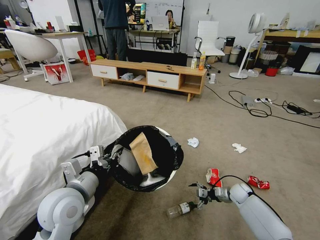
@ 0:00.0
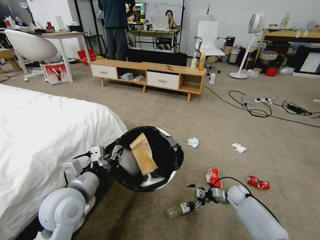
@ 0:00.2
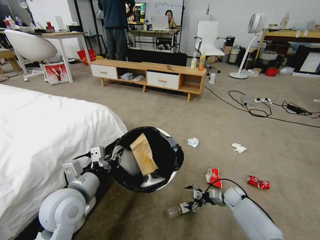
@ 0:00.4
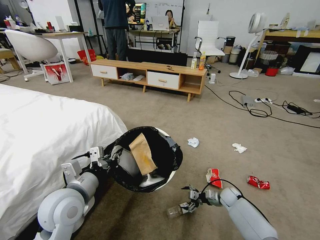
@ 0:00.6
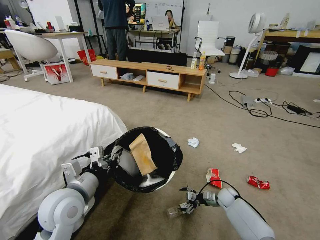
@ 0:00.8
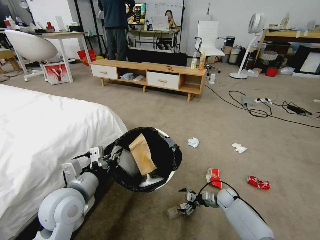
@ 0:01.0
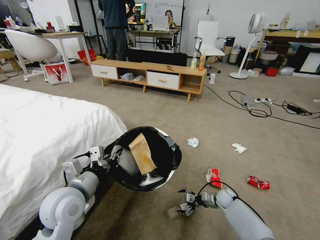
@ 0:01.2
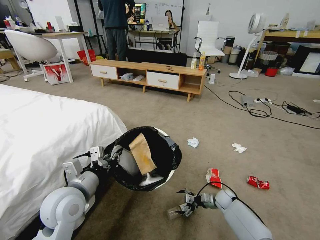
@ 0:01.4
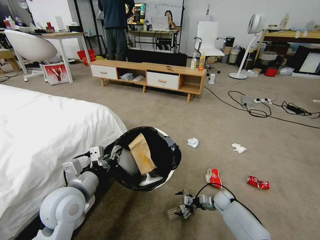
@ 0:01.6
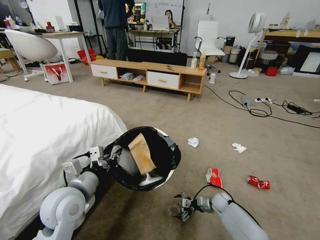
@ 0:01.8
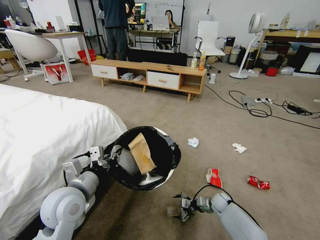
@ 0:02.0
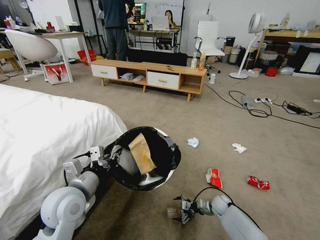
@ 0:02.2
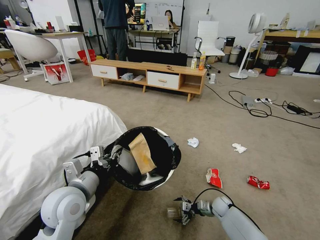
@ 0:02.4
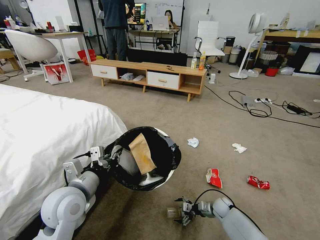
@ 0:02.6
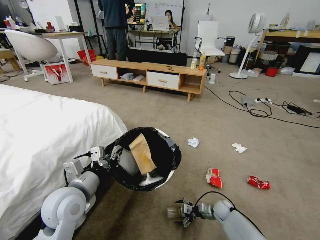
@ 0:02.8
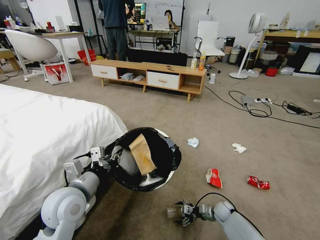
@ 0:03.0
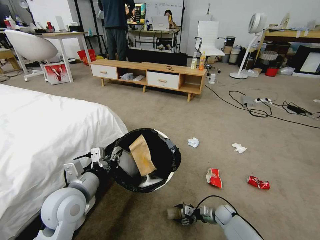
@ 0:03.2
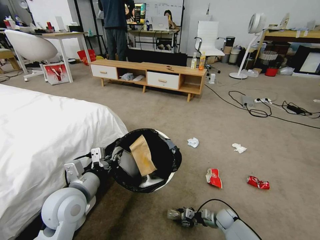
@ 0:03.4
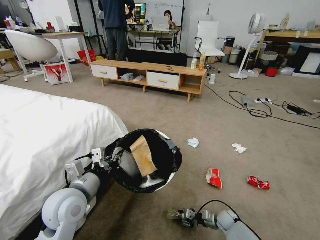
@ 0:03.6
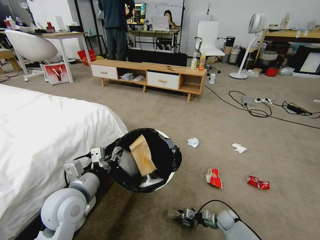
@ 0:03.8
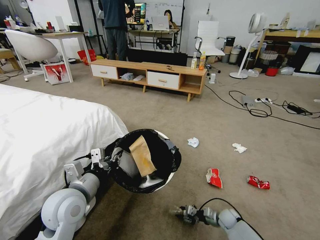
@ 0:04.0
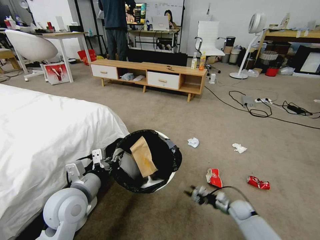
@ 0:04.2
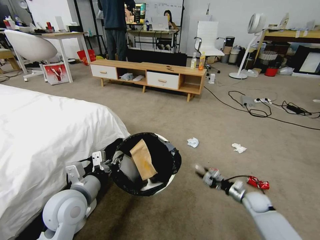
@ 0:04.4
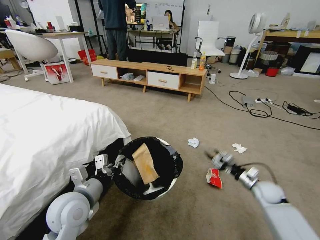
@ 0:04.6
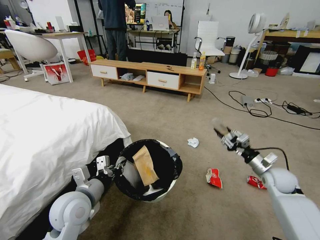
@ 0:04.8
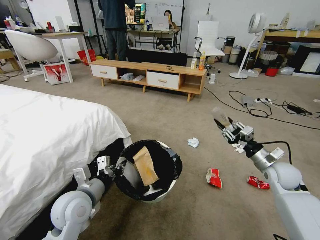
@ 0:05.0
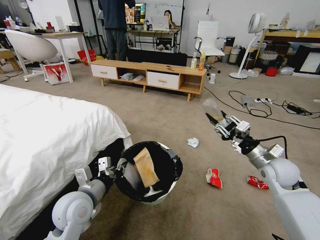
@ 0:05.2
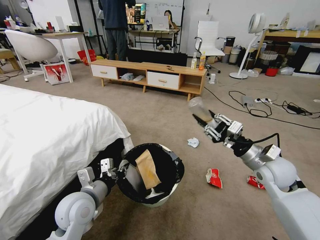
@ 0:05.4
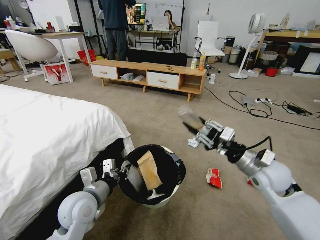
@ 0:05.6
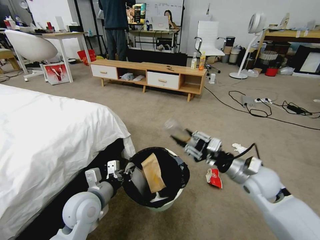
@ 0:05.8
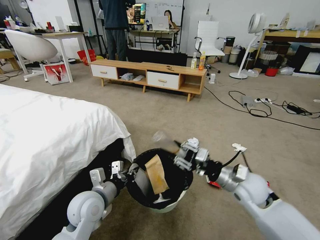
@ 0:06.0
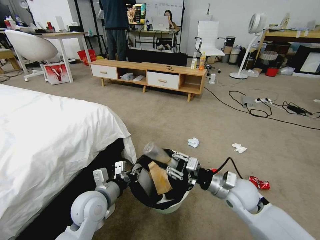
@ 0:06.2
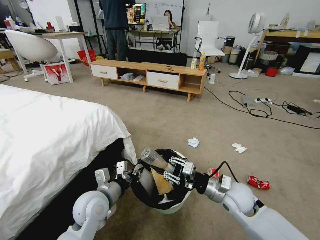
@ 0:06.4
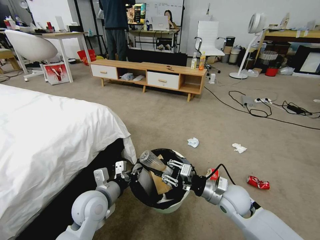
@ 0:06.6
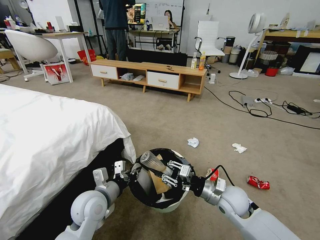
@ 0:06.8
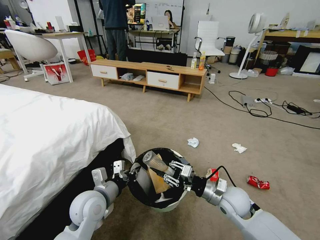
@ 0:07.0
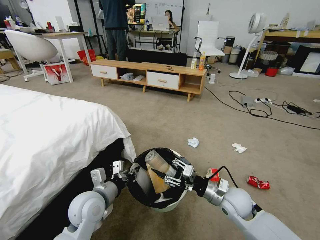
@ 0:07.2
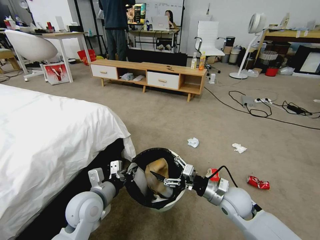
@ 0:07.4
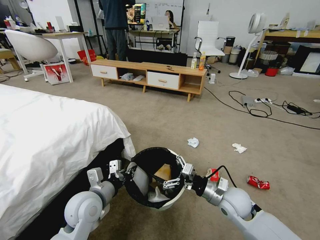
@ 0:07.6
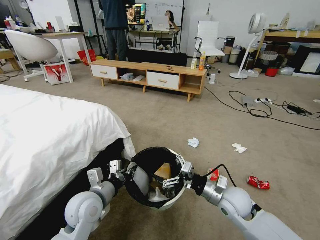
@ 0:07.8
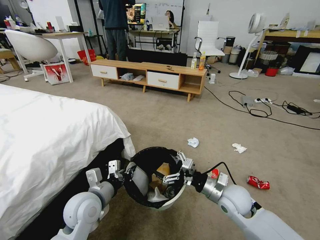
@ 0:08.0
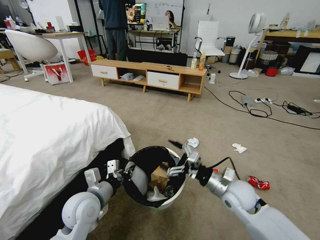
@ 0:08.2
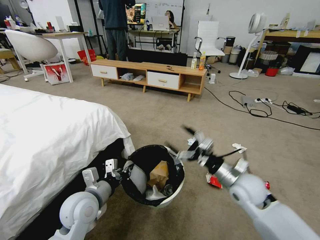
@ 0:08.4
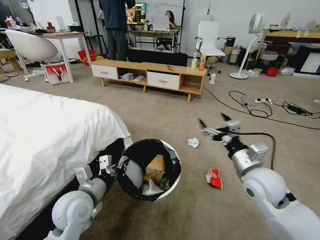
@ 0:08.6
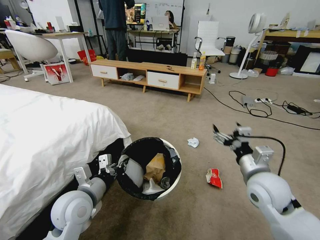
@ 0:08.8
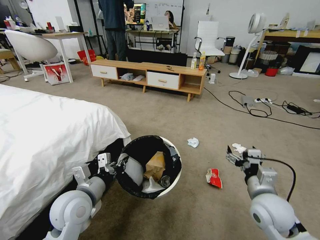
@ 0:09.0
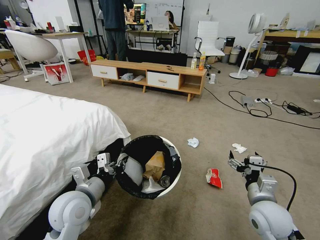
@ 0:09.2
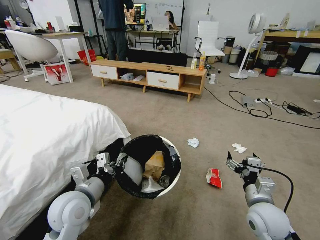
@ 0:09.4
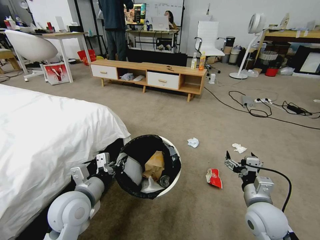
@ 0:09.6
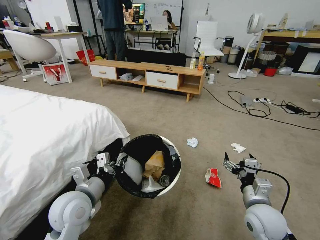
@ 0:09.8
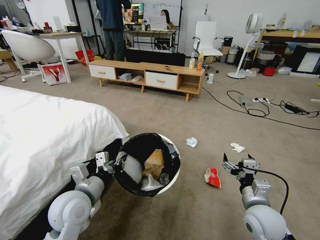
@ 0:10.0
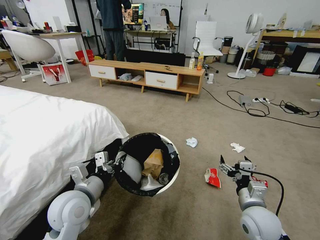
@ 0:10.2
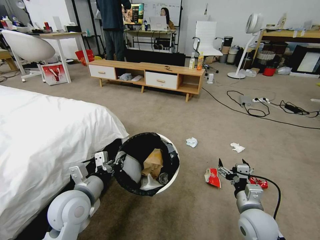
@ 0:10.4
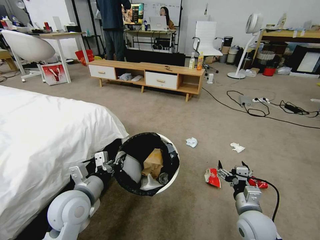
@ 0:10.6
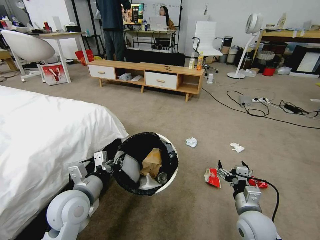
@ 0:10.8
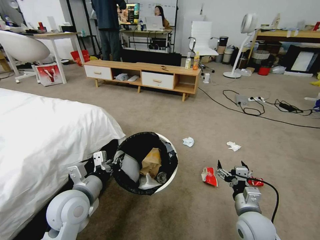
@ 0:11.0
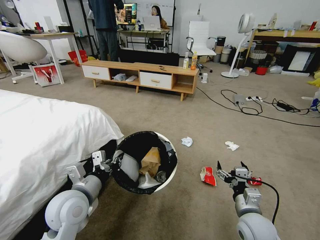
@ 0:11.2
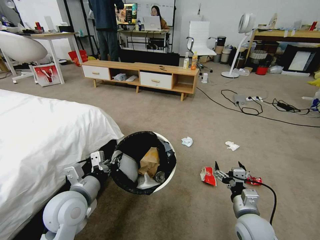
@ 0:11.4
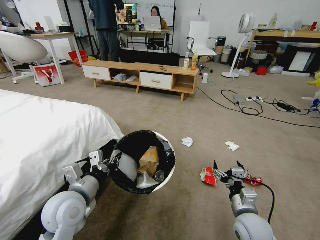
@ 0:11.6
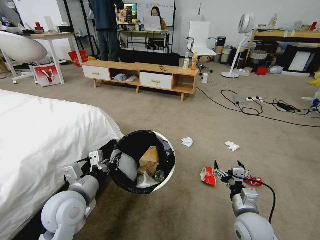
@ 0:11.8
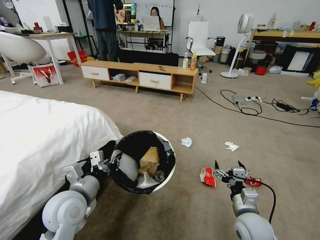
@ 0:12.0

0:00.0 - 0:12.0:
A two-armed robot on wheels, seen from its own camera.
Task of the whole recording: Pick up the trash bin and place the garbage on the floor into it.
0:00.0 - 0:01.6: The right gripper travels to the left and downward by roughly 10 cm.
0:01.6 - 0:03.0: The grippers stay close to where they were, moving slightly.
0:03.0 - 0:04.4: The right gripper heads upward and to the right, covering some 15 cm, and closes its fingers.
0:04.4 - 0:06.0: The left gripper shifts approximately 5 cm downward, while the right gripper goes roughly 25 cm upward and to the left.
0:06.0 - 0:07.6: The right gripper is displaced downward by approximately 5 cm, and opens up.
0:07.6 - 0:09.0: The right gripper goes roughly 10 cm to the right and upward.
0:09.0 - 0:10.4: The right gripper goes approximately 10 cm downward.

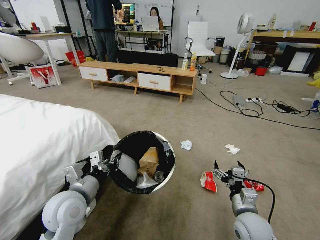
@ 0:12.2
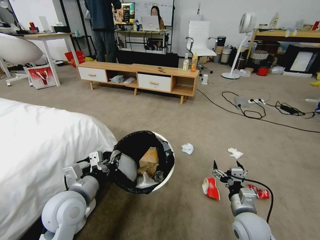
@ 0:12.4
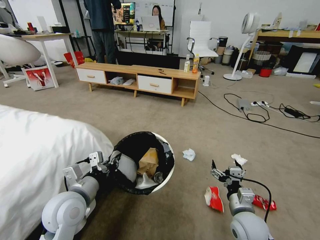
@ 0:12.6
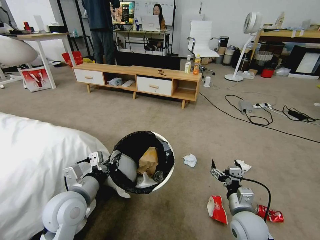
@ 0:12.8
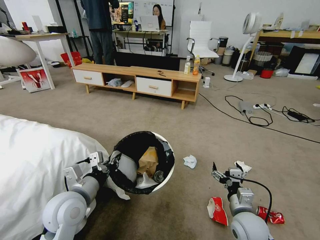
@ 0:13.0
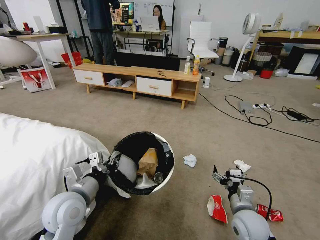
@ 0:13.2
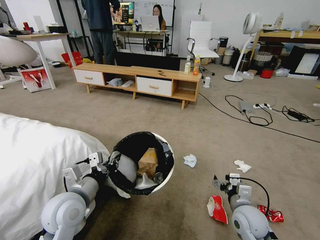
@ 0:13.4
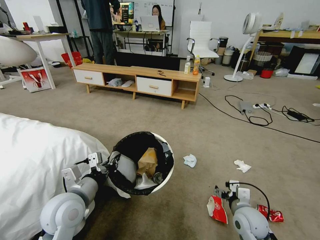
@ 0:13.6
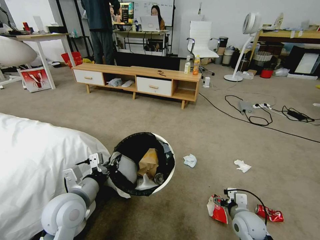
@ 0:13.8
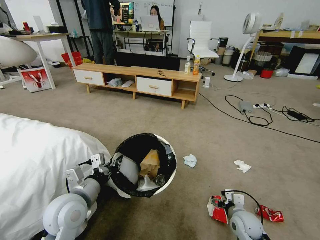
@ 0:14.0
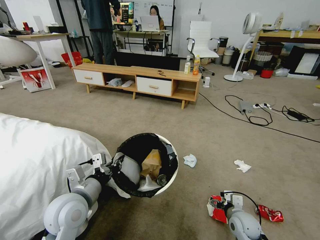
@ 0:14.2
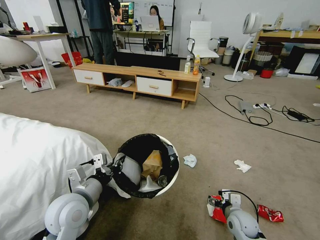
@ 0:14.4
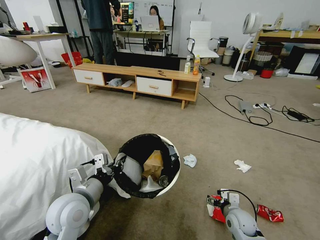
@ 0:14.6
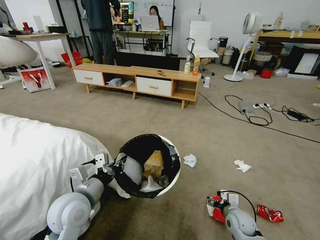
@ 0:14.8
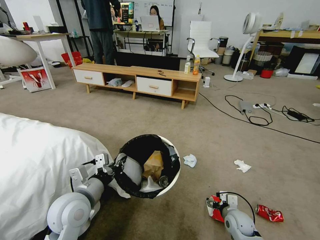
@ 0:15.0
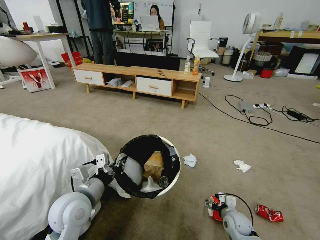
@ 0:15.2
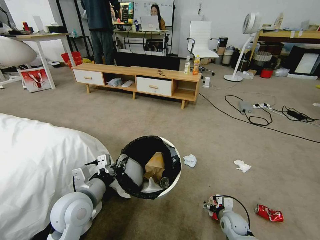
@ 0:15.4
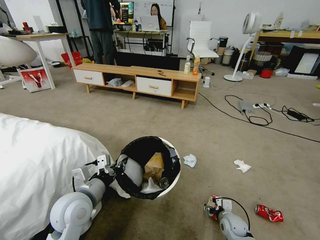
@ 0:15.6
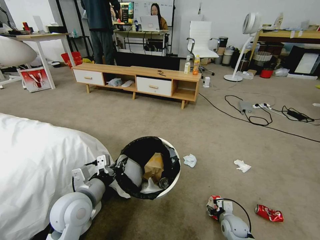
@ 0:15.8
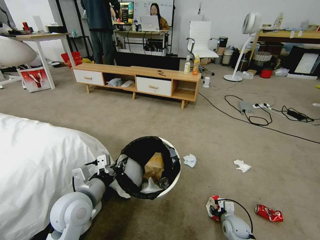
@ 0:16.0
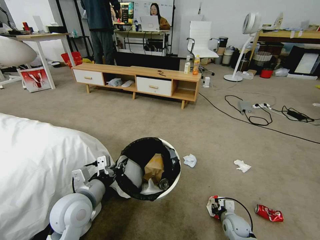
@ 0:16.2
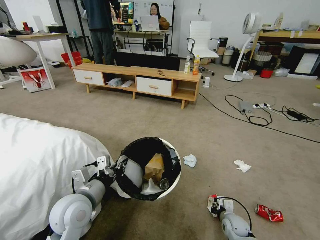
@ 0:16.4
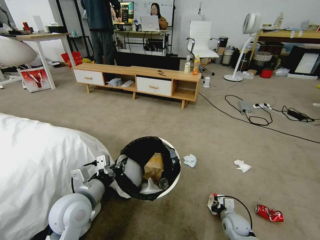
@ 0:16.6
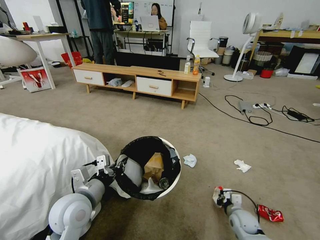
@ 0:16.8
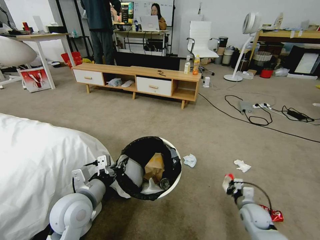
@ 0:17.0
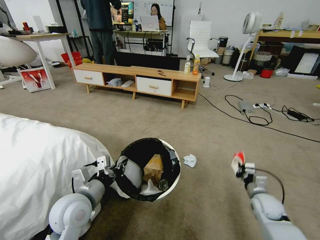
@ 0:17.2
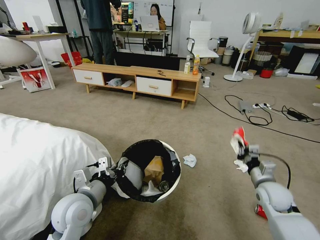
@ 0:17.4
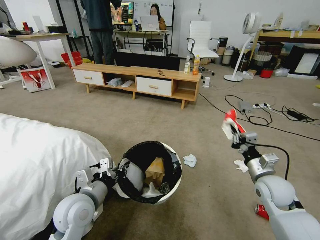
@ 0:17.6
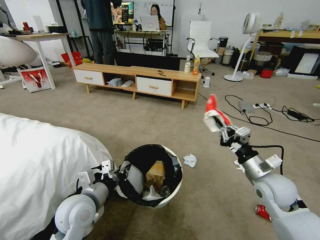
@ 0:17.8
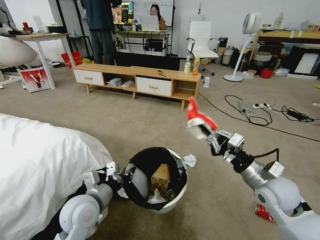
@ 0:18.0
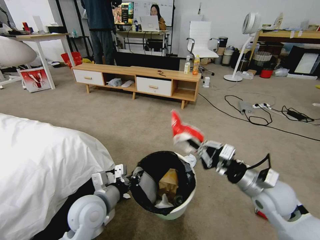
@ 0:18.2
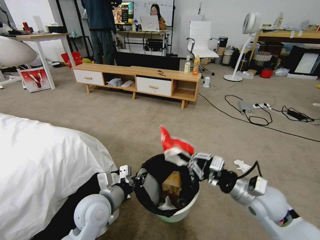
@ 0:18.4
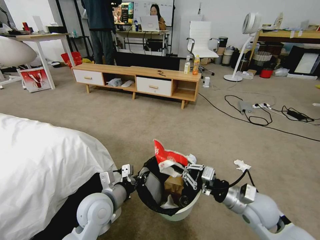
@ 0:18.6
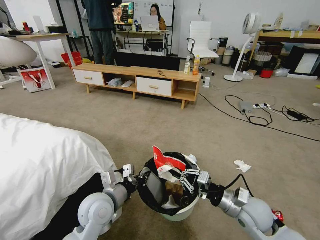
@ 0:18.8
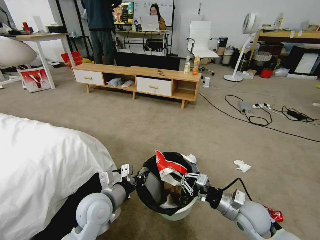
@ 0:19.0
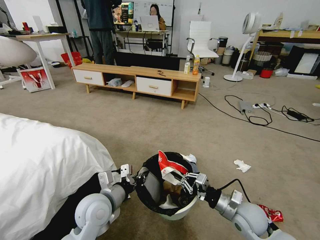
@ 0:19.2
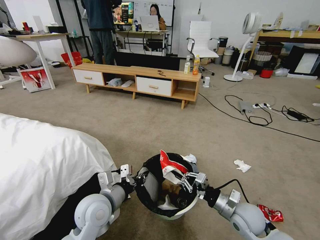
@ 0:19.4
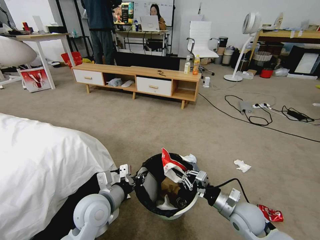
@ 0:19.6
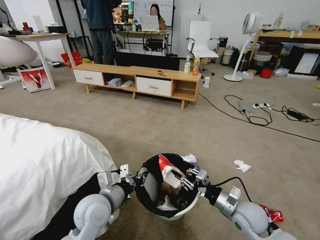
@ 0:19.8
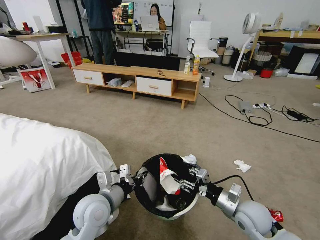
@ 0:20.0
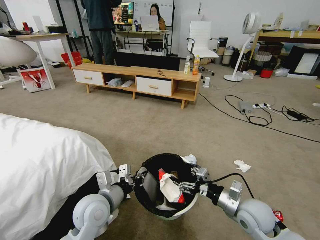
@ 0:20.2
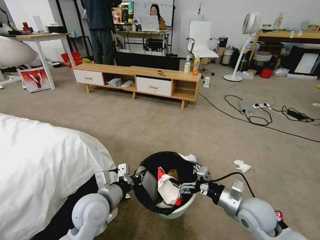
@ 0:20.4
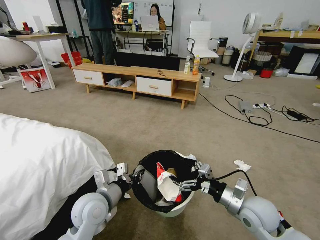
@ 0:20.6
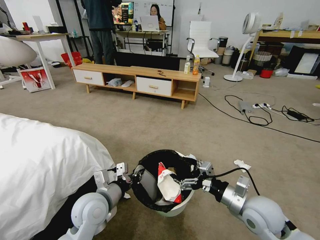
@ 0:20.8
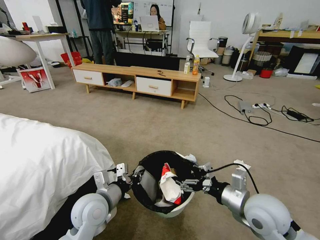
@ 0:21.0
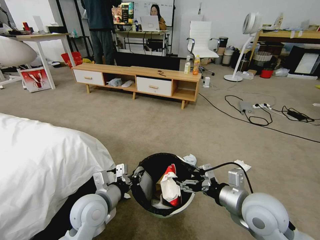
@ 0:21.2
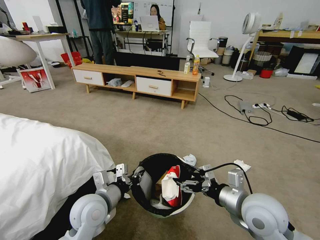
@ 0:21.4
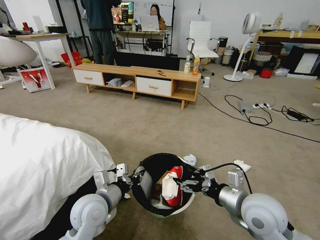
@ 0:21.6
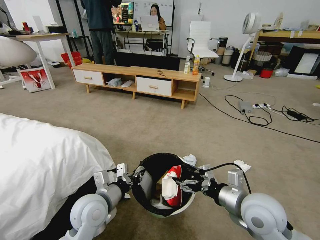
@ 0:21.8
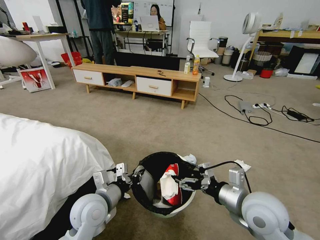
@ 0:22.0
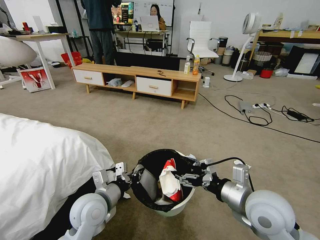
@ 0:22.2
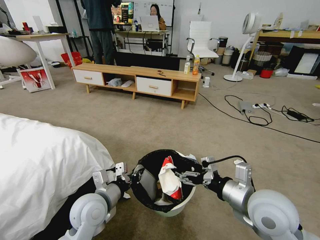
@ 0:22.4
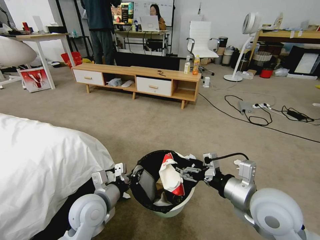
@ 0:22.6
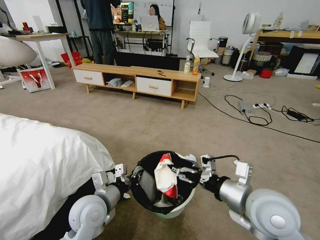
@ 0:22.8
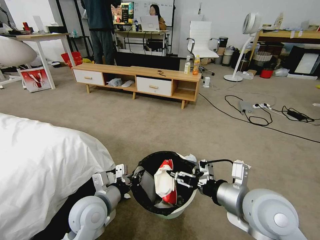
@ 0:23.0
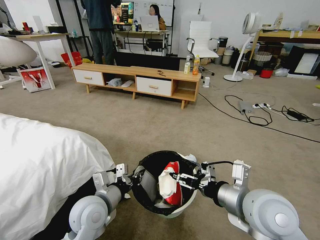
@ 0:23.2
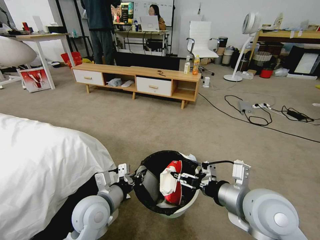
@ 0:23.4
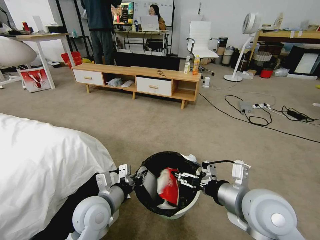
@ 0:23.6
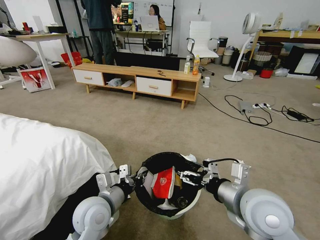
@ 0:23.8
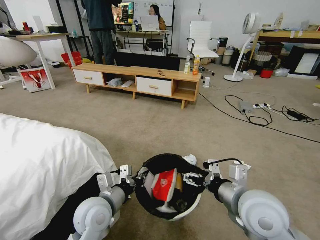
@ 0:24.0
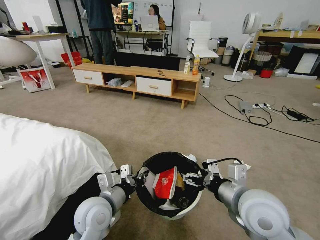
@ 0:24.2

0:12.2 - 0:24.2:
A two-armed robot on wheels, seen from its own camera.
Task of the whole recording: Pick up the trash bin and place the garbage on the floor into it.
0:12.2 - 0:13.8: The right gripper moves downward, roughly 5 cm.
0:13.8 - 0:15.2: The right gripper moves downward, approximately 10 cm.
0:15.2 - 0:16.6: The right gripper closes up.
0:16.6 - 0:18.2: The right gripper travels upward by approximately 30 cm.
0:18.2 - 0:19.8: The right gripper goes roughly 10 cm downward.
0:19.8 - 0:21.2: The right gripper goes approximately 10 cm upward, and opens.
0:21.2 - 0:22.6: The grippers stay close to where they were, moving slightly.
